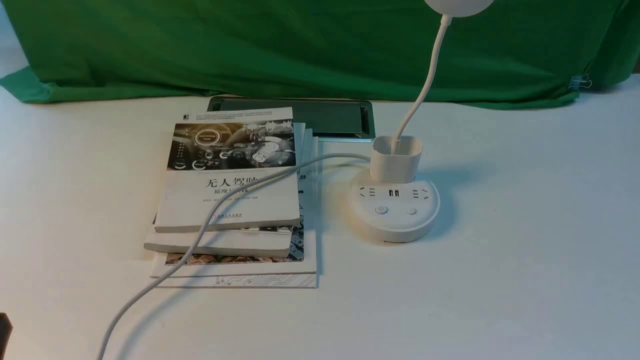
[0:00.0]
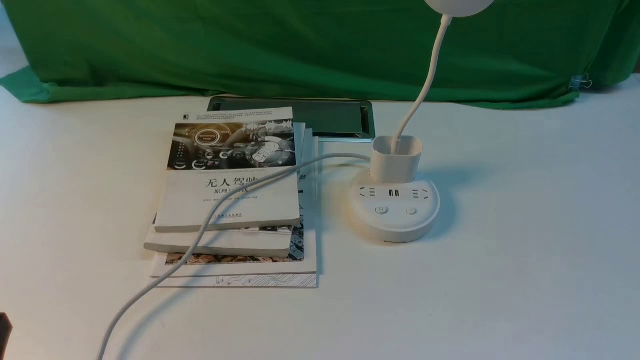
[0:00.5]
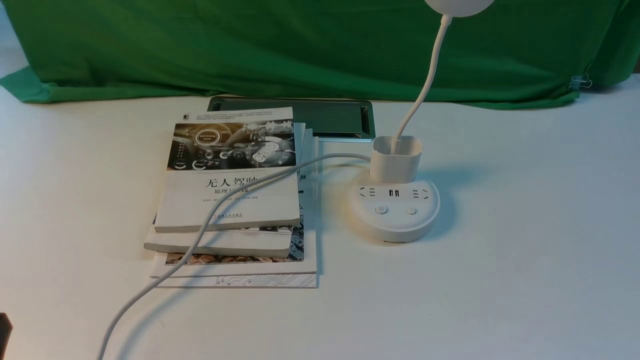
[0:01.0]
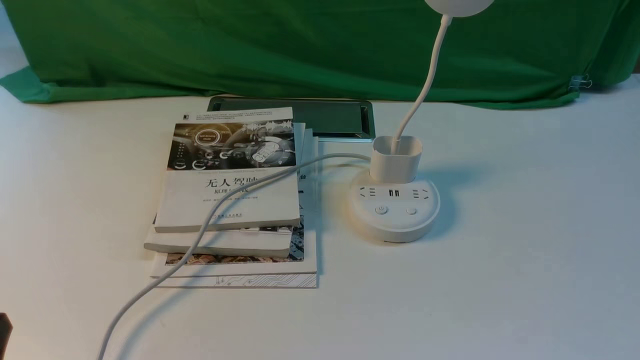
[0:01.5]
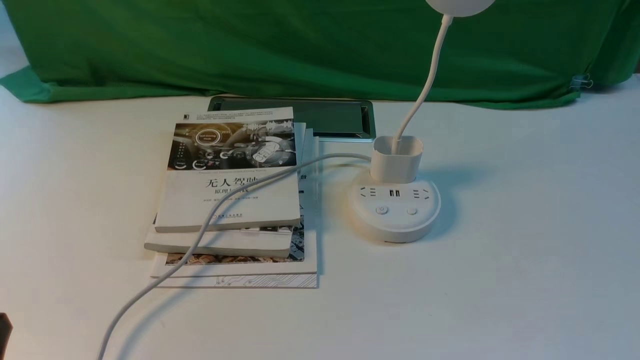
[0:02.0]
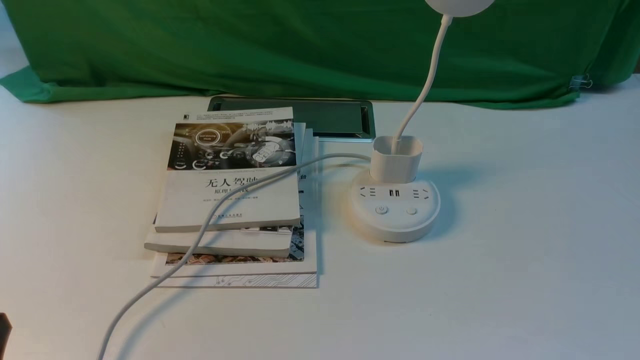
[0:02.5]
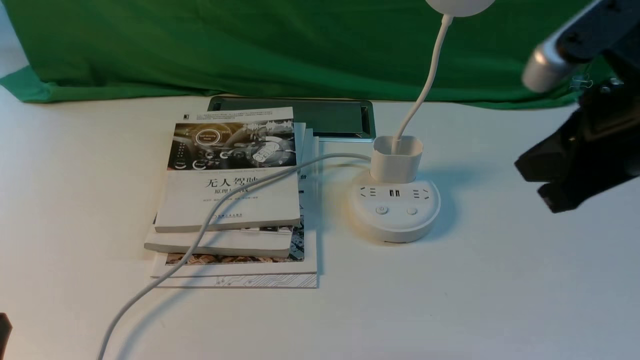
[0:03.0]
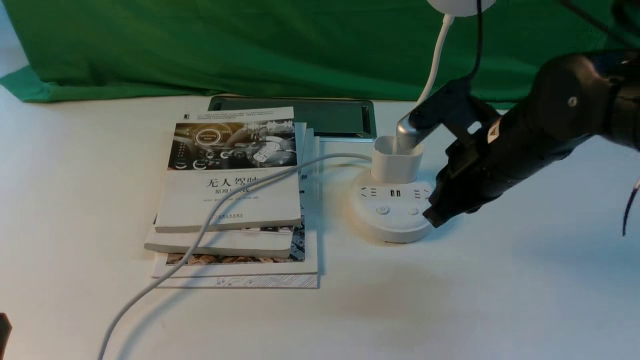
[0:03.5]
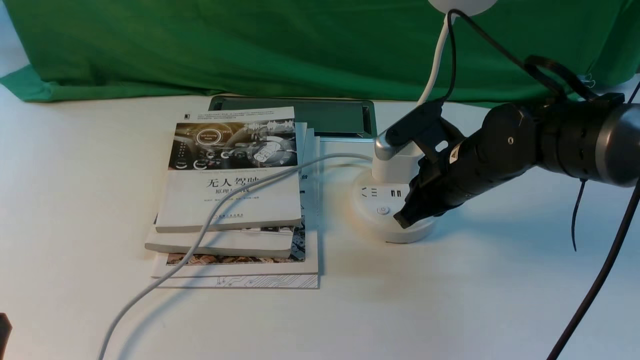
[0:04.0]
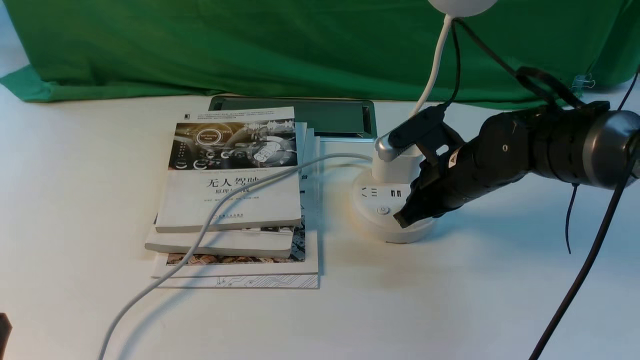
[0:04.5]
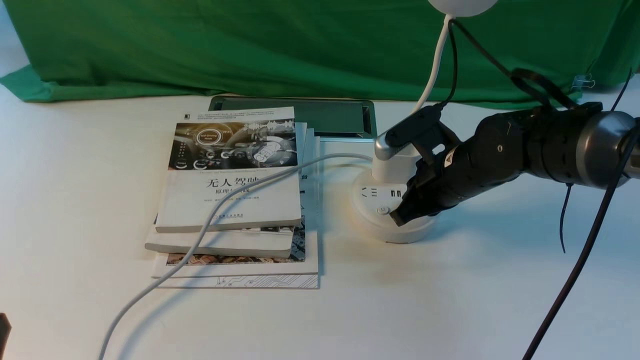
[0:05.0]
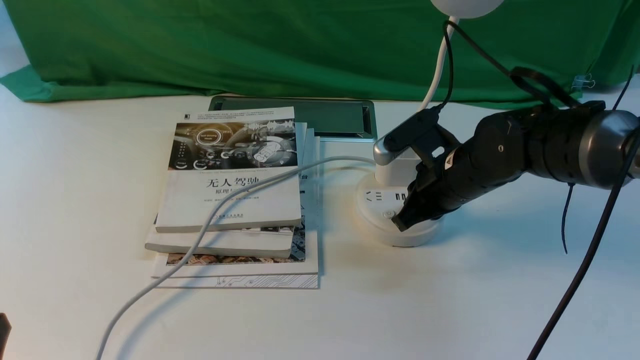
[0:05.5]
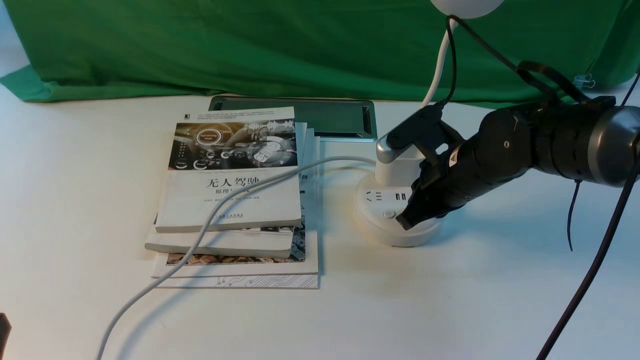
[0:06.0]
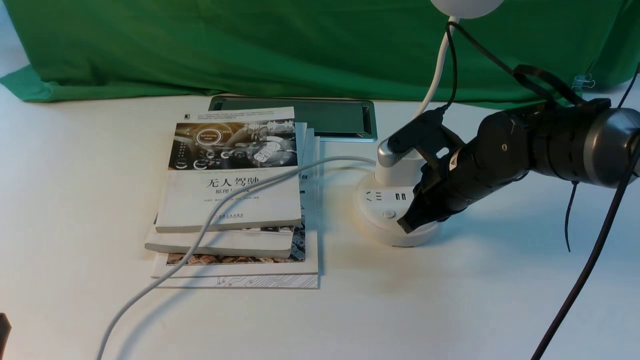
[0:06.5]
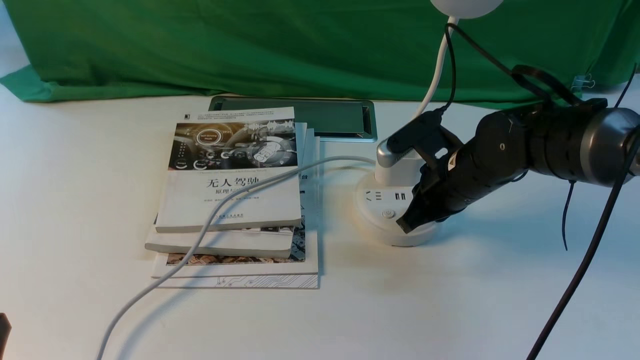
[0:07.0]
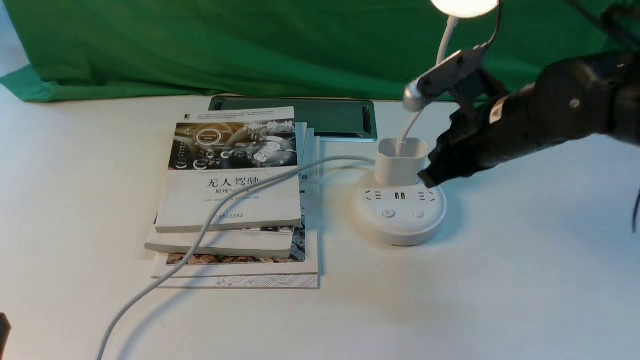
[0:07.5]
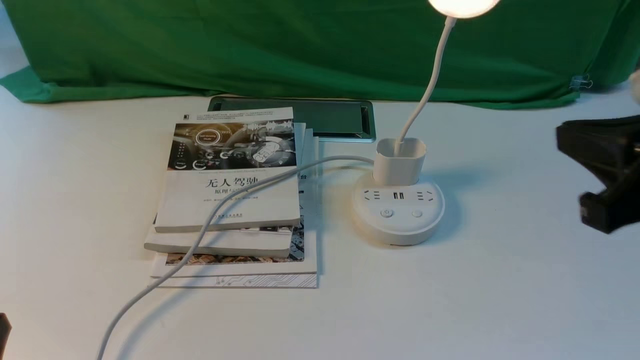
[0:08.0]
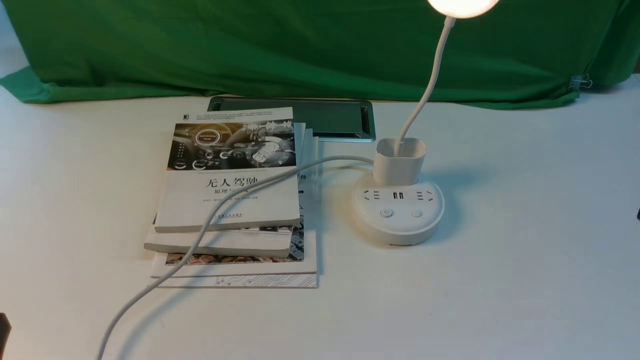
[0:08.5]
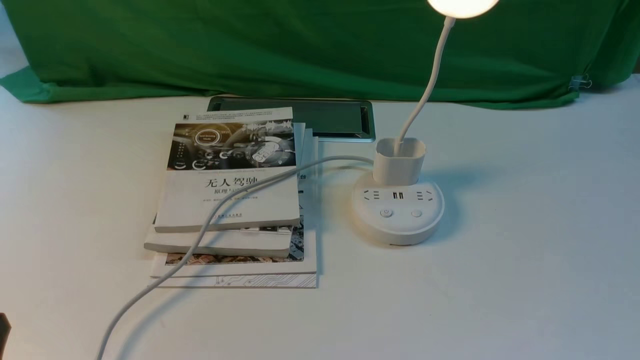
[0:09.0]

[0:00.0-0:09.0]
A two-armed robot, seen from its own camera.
Step, 0:00.0 to 0:07.0: use the right arm to press the button switch on the lamp holder.
0:02.0 to 0:04.5: The right gripper moves forward and to the left, approximately 35 cm, and closes.
0:04.5 to 0:07.0: The grippers make only small movements.
0:07.0 to 0:09.0: The right gripper heads backward and to the right, covering about 35 cm, and opens its fingers.

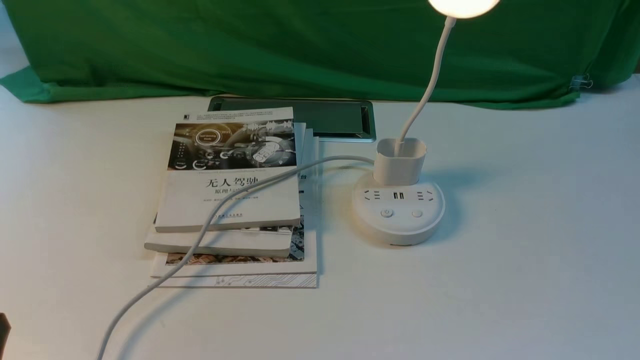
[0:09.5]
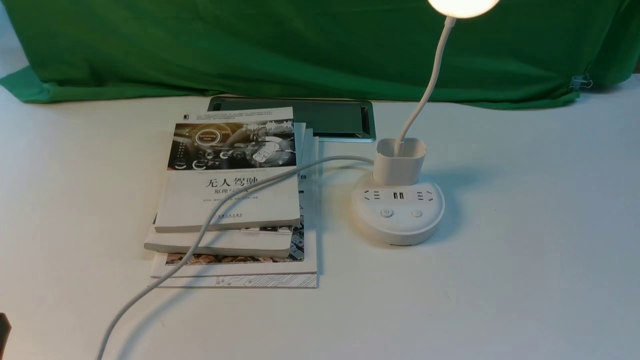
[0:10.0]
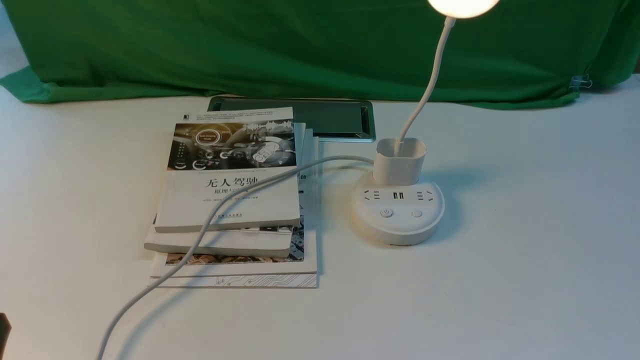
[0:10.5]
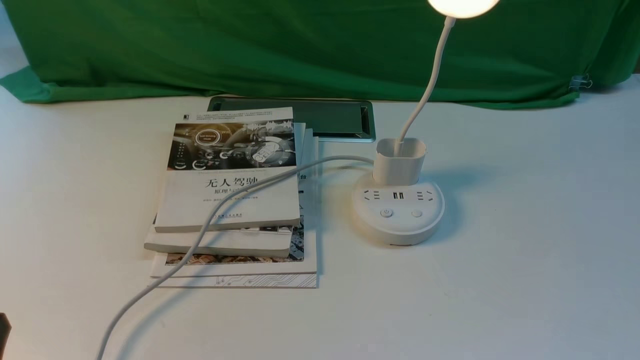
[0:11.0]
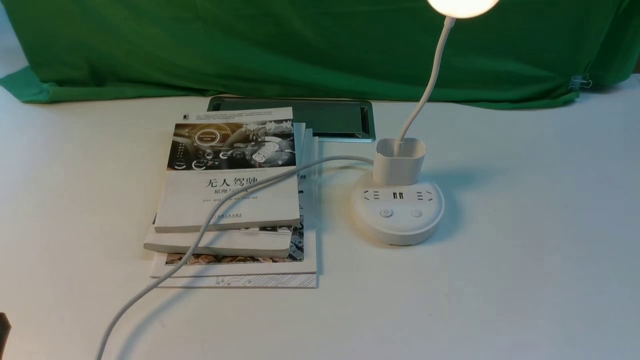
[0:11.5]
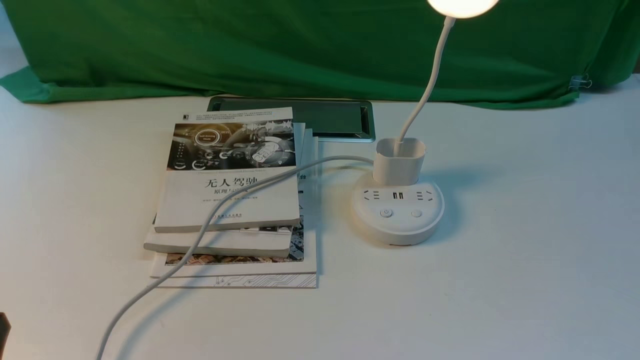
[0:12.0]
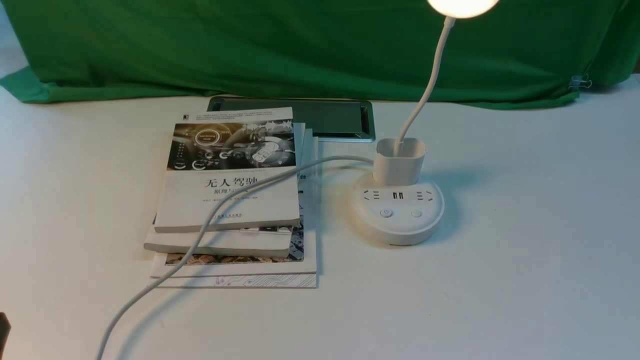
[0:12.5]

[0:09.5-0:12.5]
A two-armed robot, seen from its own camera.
0:11.0 to 0:12.5: The two grippers keep their place.
